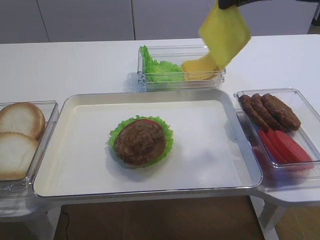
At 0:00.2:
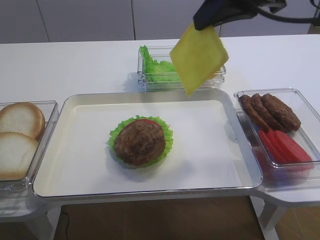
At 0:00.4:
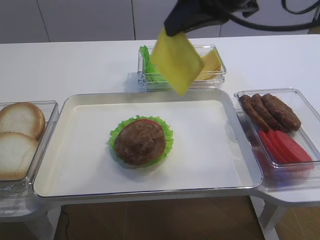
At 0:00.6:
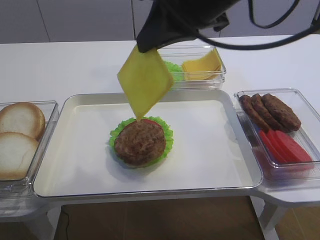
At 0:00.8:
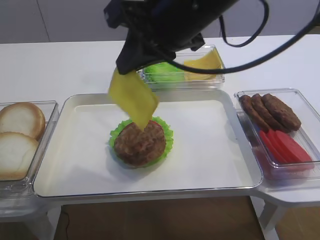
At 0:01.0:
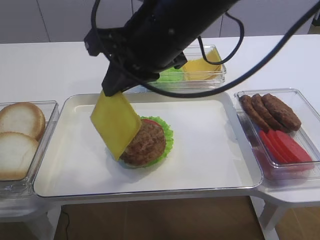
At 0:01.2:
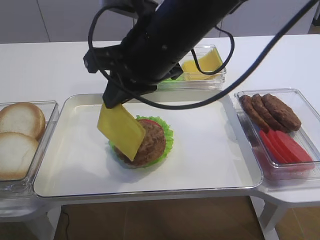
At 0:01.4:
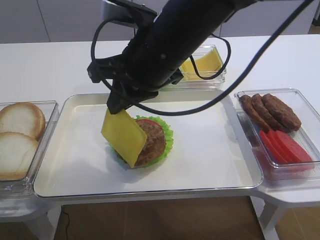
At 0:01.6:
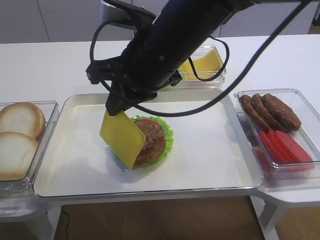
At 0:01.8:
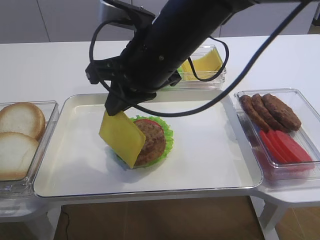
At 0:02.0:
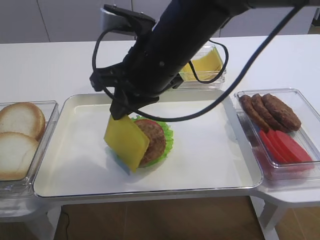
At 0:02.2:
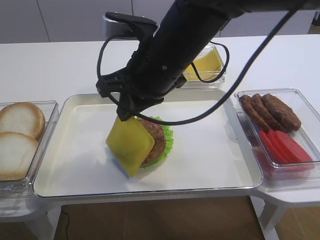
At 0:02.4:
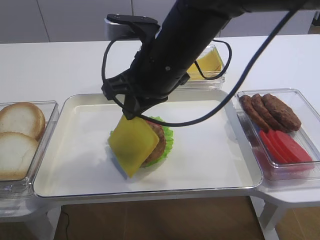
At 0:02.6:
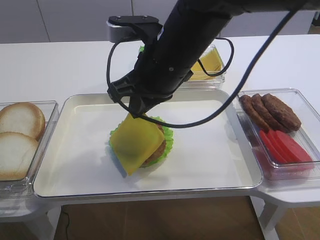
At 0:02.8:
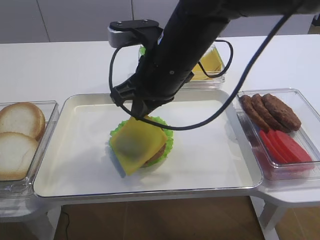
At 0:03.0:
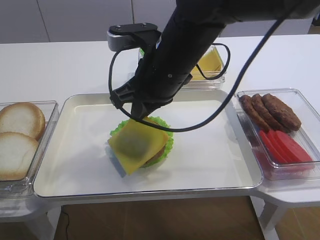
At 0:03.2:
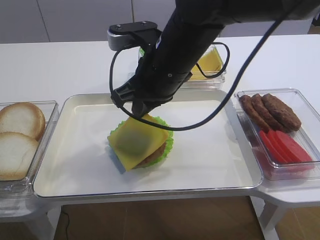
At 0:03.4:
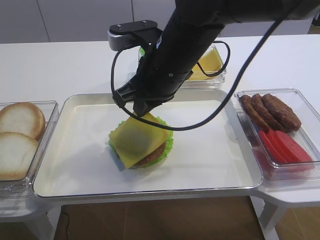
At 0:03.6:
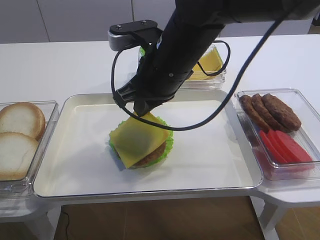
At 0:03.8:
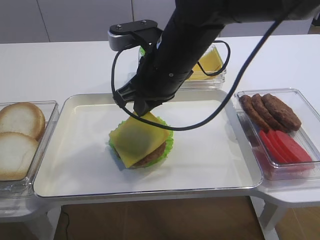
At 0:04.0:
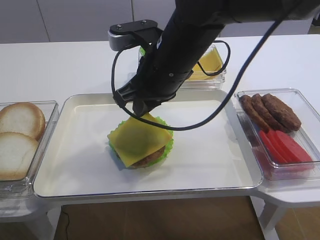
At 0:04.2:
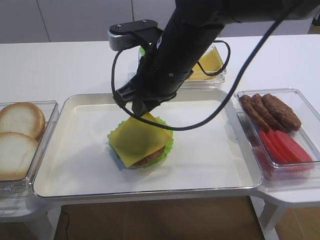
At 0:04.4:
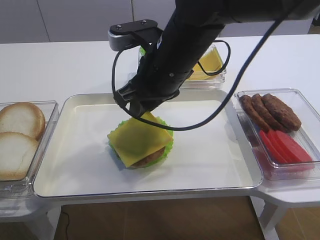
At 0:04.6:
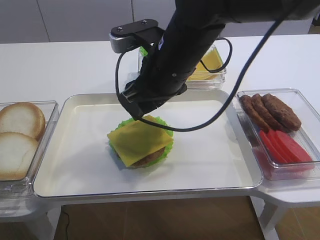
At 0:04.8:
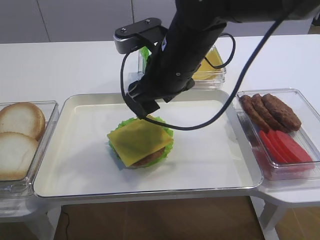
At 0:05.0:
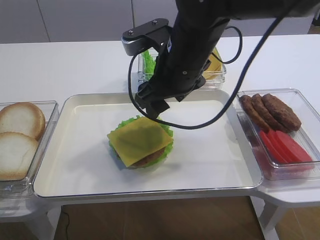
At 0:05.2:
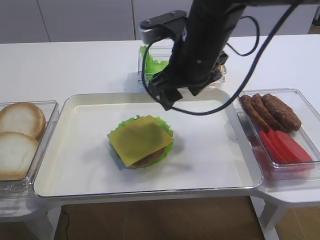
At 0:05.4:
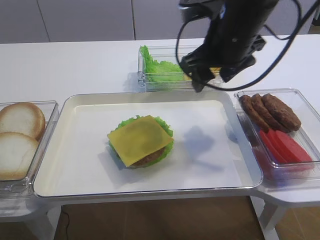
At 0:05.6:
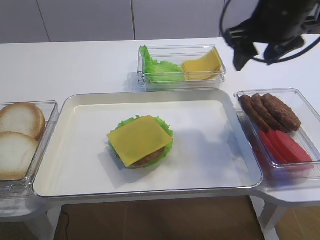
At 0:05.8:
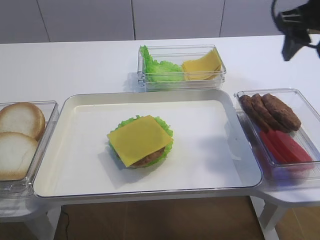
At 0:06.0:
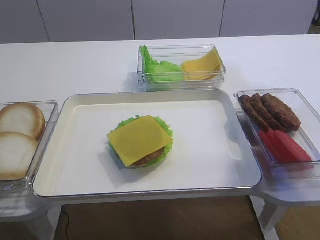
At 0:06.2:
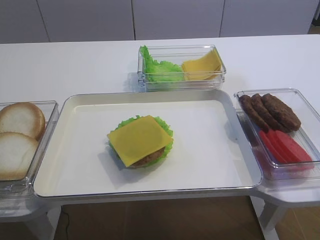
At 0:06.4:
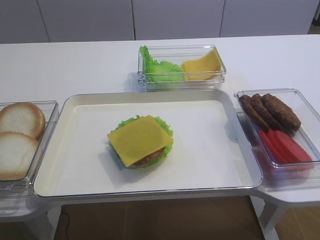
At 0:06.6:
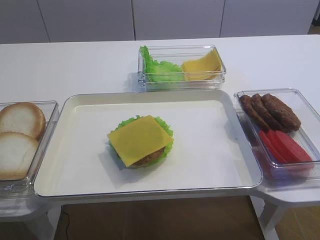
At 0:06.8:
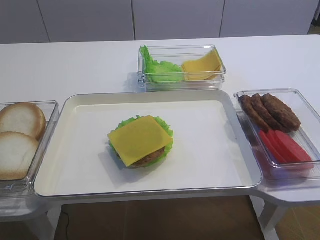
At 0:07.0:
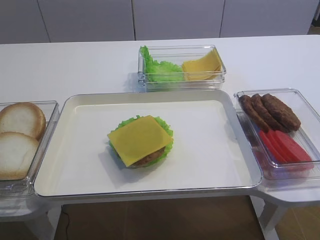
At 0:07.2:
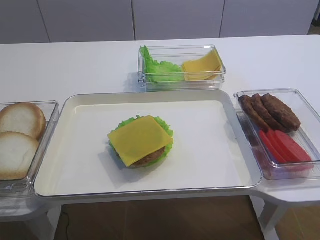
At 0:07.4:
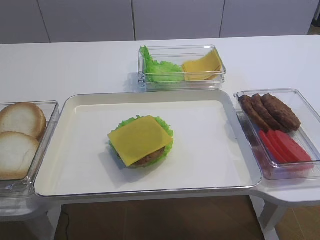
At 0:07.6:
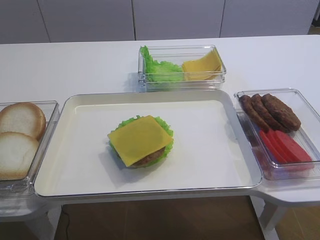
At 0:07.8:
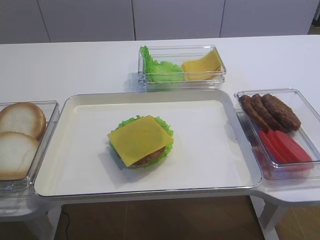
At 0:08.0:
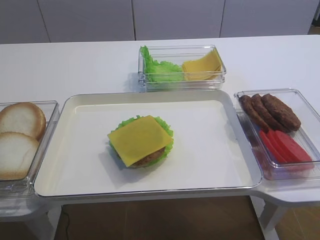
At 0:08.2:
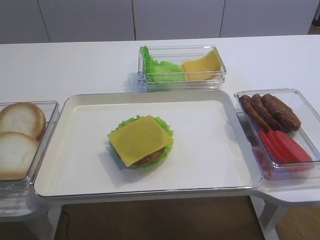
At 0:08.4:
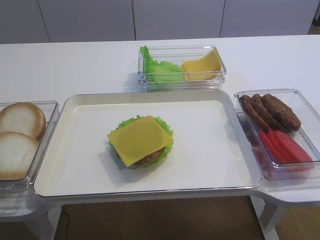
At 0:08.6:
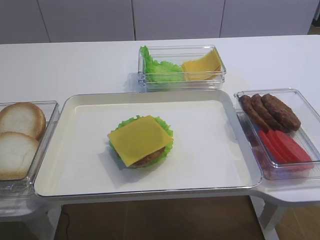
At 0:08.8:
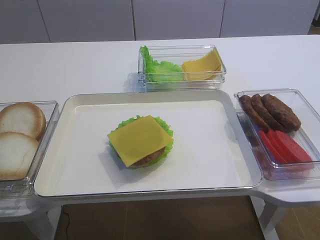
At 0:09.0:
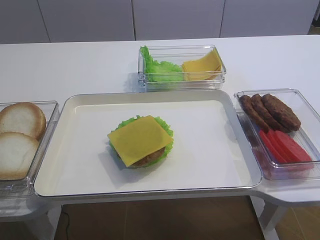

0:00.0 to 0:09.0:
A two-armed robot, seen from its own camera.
Step, 0:00.0 to 0:05.4: Place the cheese slice on the cutlet with the right gripper.
0:00.0 to 0:01.6: The right gripper heads to the left and downward, covering some 20 cm.
0:01.6 to 0:03.0: The grippers stay close to where they were, moving slightly.
0:03.0 to 0:04.4: The right gripper opens up.
0:04.4 to 0:06.0: The right gripper goes approximately 25 cm to the right, and opens up.
0:06.0 to 0:07.6: The right gripper travels backward by roughly 30 cm.

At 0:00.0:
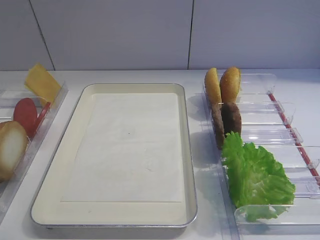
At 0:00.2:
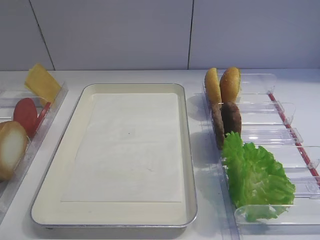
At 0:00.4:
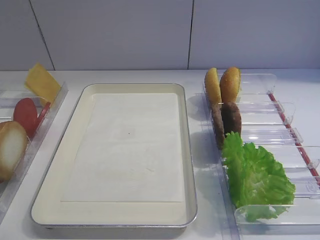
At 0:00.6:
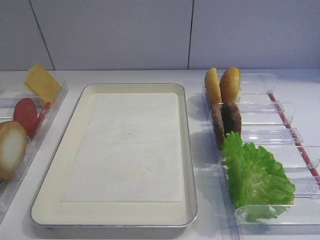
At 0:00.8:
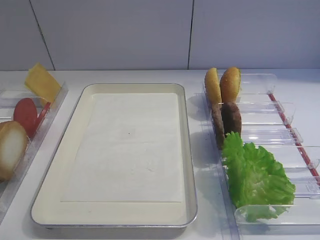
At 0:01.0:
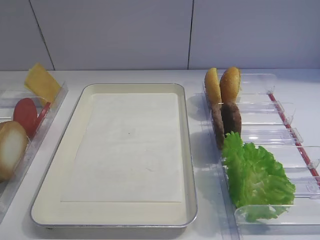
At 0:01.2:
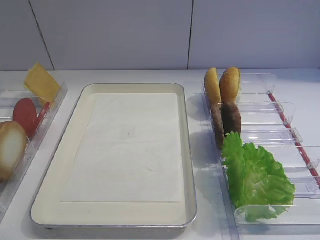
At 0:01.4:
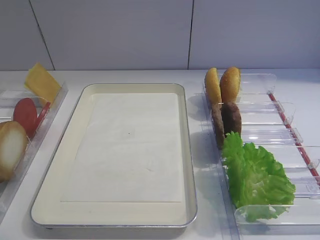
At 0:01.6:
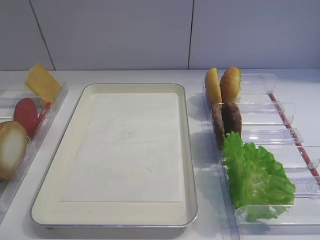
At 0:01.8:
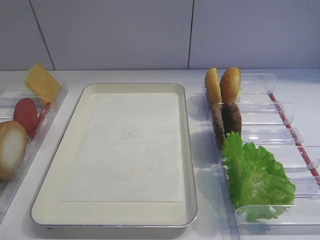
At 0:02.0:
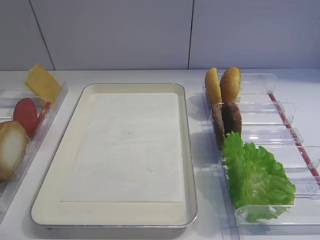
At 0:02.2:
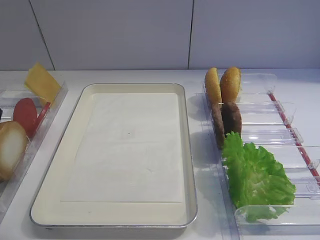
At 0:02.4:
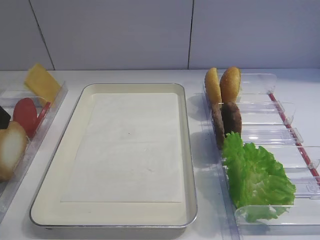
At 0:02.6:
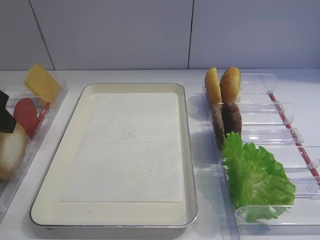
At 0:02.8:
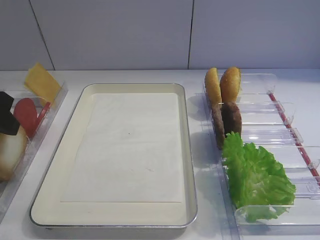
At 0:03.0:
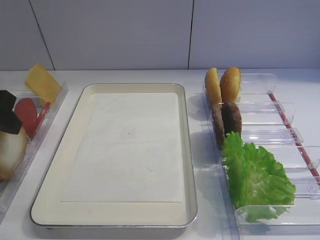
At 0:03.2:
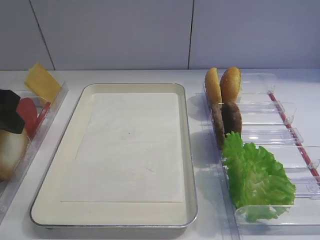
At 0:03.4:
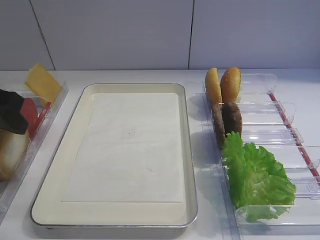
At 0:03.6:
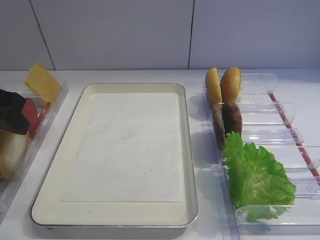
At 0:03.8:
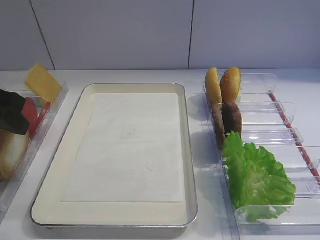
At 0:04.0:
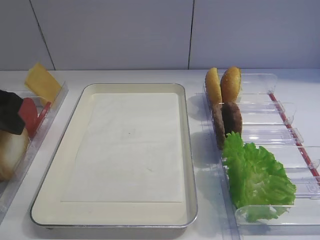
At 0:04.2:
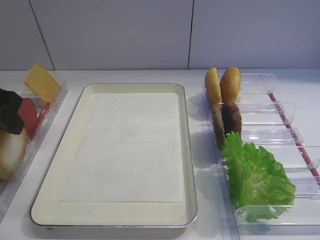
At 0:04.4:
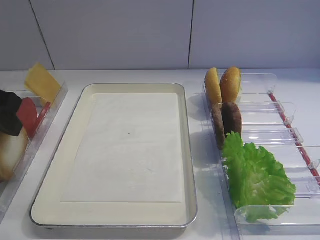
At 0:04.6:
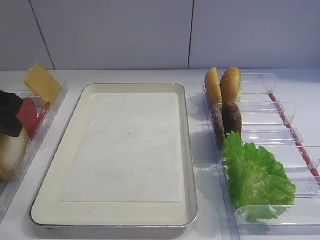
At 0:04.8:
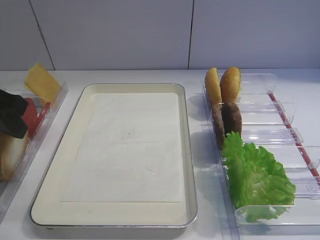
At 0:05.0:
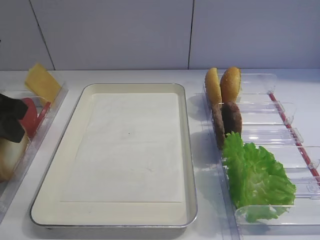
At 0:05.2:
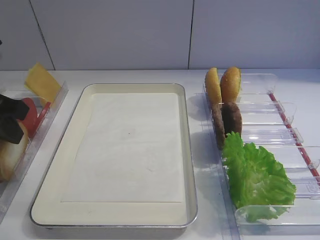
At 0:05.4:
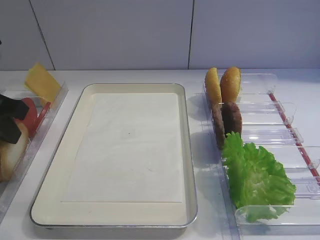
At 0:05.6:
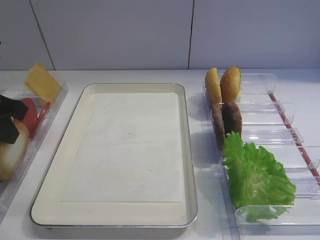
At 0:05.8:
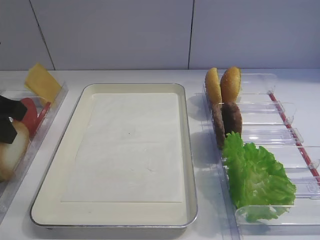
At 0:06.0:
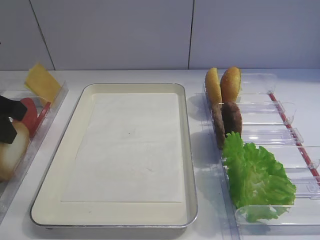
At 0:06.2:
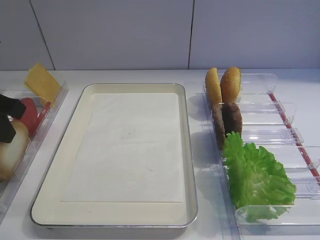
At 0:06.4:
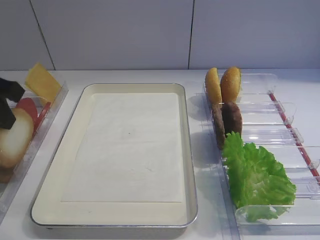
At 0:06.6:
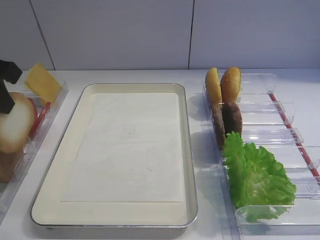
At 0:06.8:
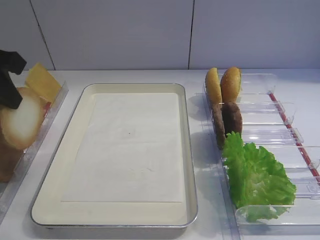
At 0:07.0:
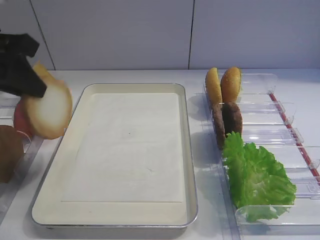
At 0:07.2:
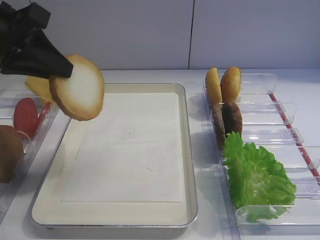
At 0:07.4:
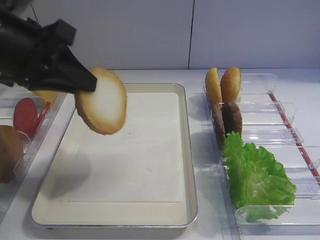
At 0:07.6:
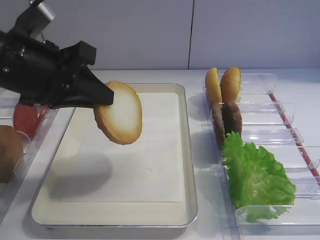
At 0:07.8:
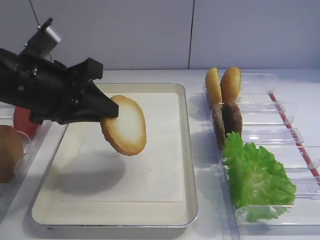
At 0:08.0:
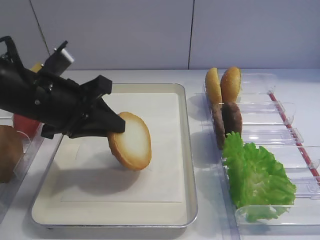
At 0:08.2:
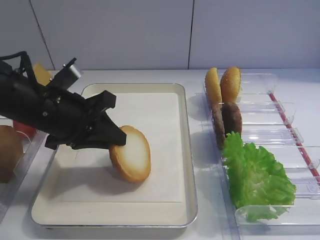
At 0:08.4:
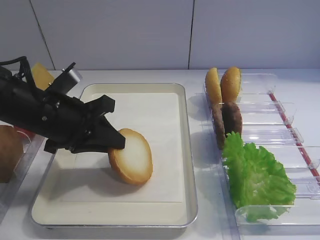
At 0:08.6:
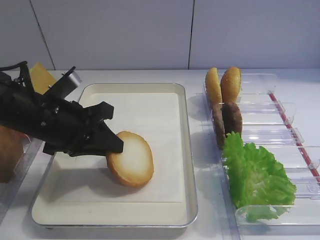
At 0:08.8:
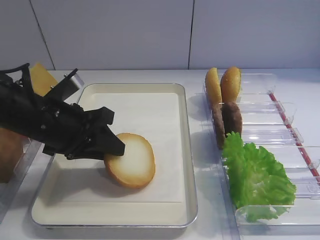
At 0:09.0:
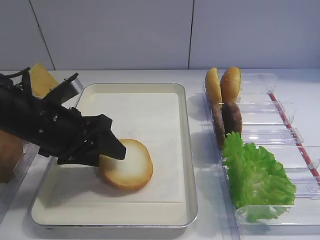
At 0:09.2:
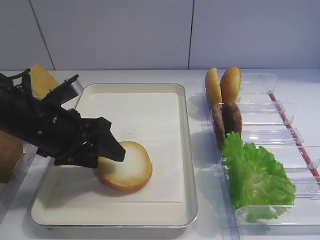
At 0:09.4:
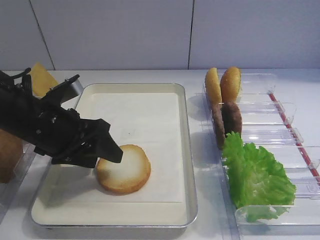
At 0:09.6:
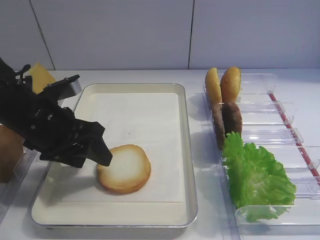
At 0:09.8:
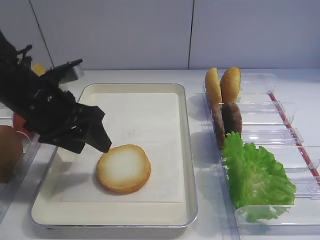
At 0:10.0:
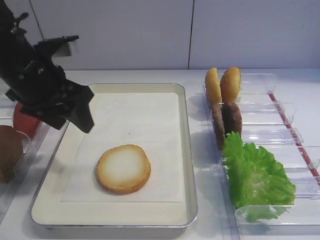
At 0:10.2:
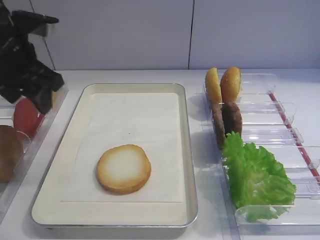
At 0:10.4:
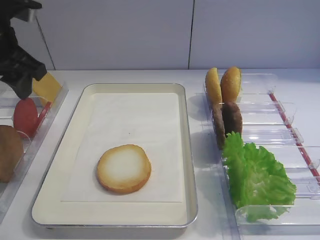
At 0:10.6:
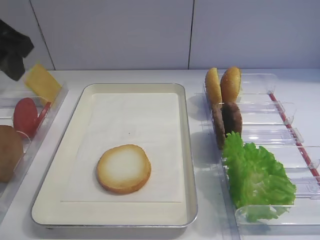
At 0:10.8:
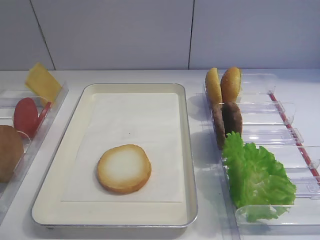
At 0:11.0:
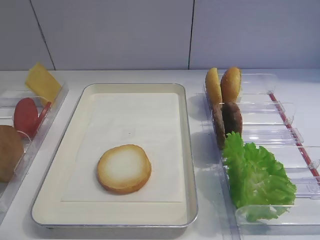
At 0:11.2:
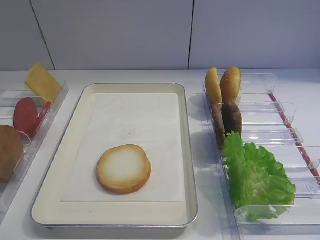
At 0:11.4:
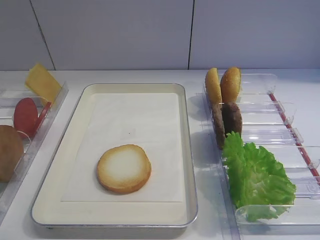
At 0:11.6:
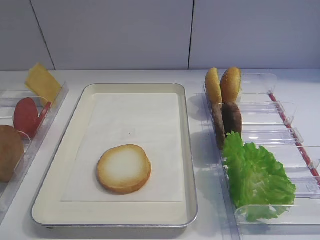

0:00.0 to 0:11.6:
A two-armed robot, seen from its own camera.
Step, 0:00.0 to 0:06.6: Pick up the bread slice with the left gripper.
Step, 0:06.8 to 0:09.8: Place the bread slice on the tray with the left gripper.
0:01.4 to 0:02.8: The left gripper heads forward, covering about 25 cm.
0:04.4 to 0:05.8: The left gripper closes its fingers.
0:05.8 to 0:07.2: The left gripper travels upward by about 5 cm.
0:07.2 to 0:08.8: The left gripper heads downward, covering about 15 cm.
0:08.8 to 0:10.2: The left gripper shifts roughly 15 cm upward, to the left and forward, and opens.
0:10.2 to 0:11.6: The left gripper moves backward, some 30 cm.

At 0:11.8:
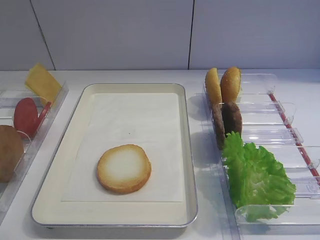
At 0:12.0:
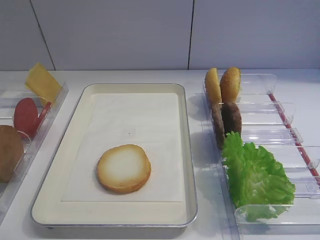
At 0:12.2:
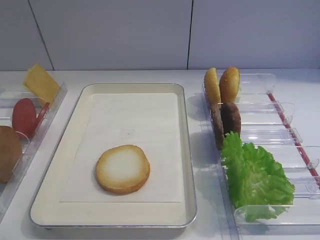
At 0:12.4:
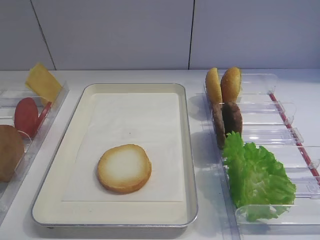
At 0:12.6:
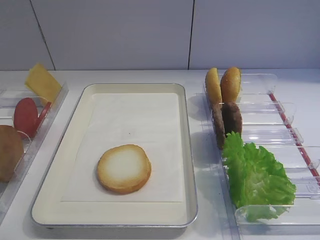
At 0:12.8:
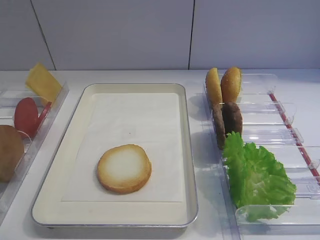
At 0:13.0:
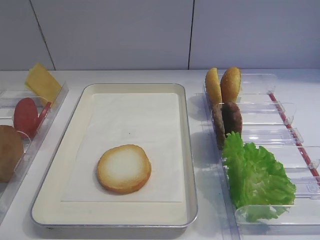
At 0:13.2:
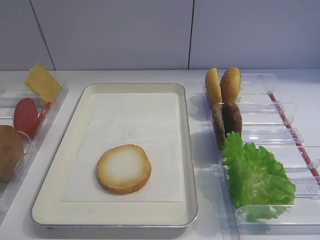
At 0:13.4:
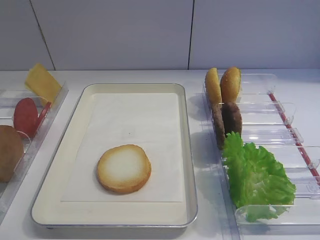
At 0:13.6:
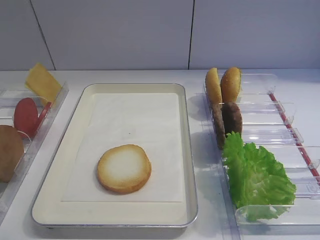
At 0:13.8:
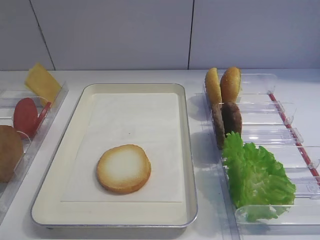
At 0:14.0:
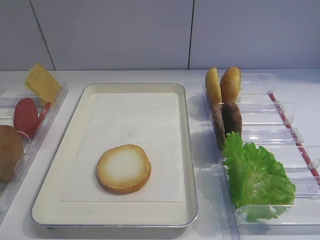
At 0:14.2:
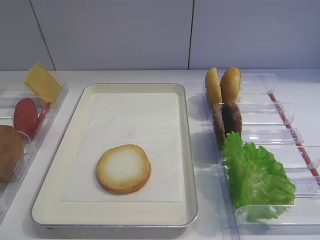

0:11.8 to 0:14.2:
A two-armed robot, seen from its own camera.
0:13.0 to 0:14.2: Both grippers stay put.
